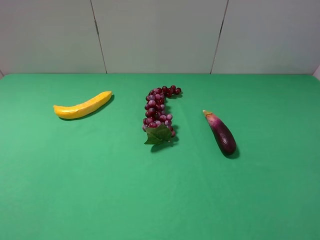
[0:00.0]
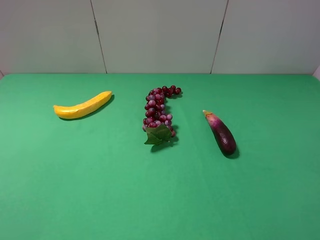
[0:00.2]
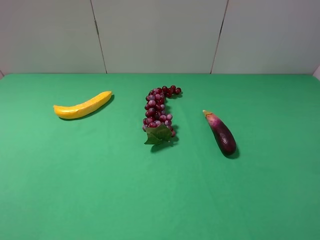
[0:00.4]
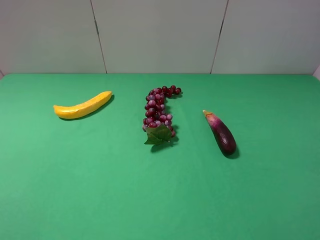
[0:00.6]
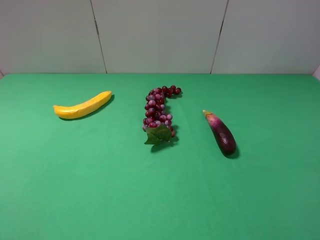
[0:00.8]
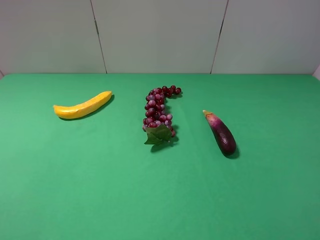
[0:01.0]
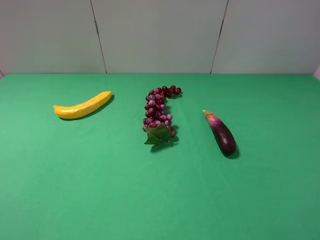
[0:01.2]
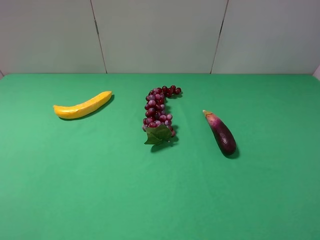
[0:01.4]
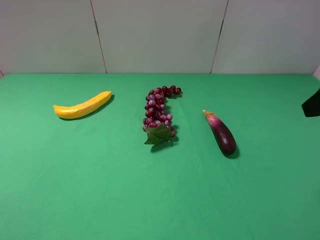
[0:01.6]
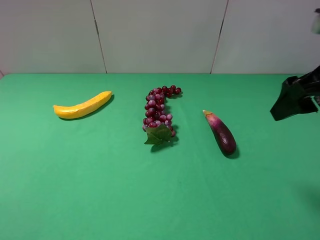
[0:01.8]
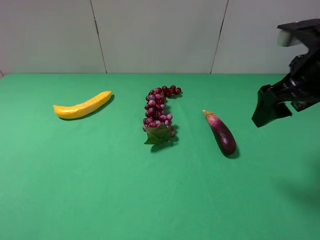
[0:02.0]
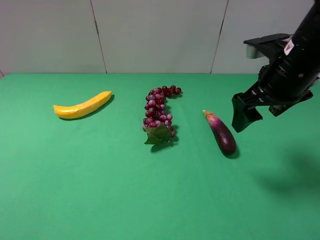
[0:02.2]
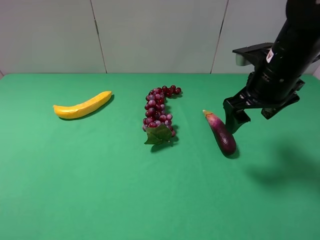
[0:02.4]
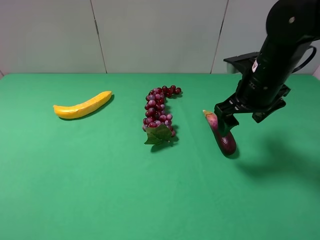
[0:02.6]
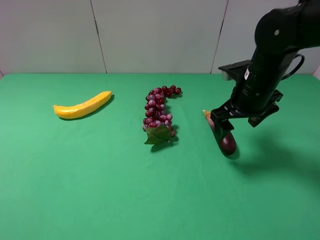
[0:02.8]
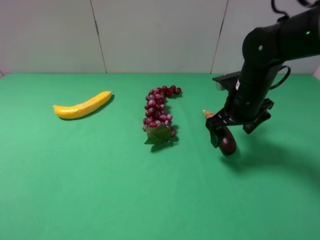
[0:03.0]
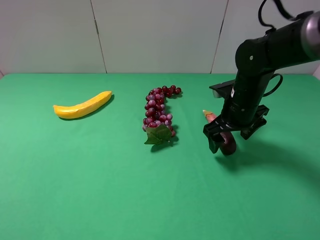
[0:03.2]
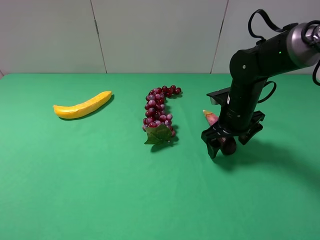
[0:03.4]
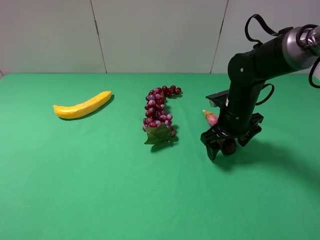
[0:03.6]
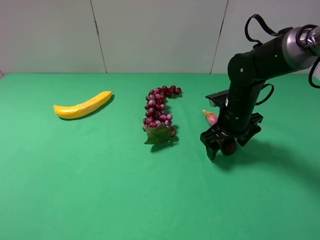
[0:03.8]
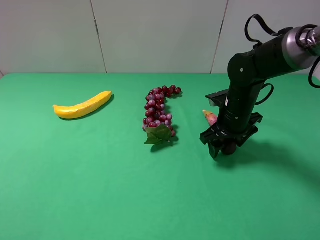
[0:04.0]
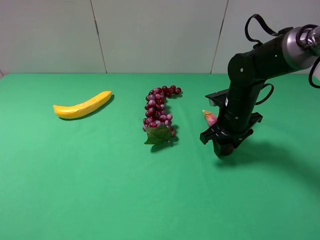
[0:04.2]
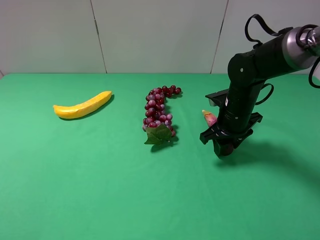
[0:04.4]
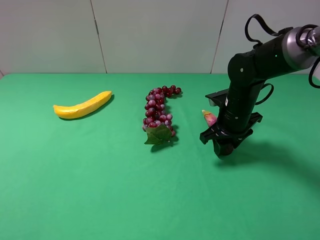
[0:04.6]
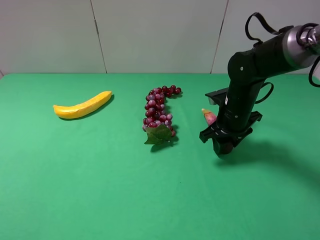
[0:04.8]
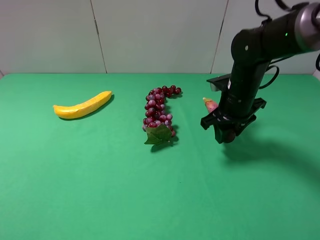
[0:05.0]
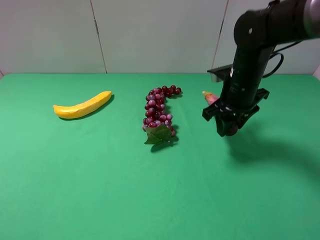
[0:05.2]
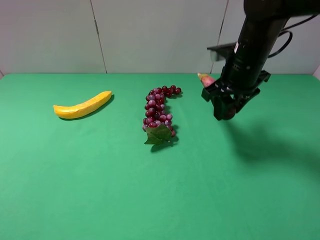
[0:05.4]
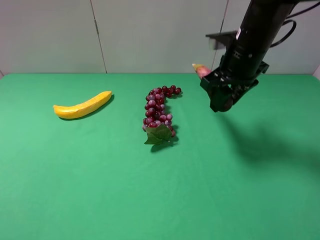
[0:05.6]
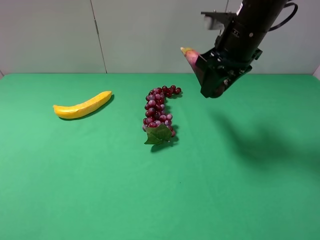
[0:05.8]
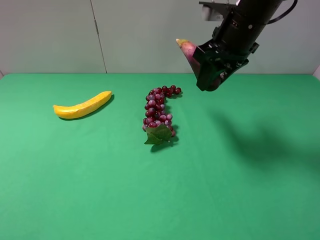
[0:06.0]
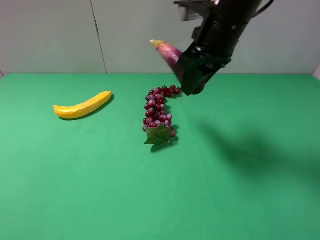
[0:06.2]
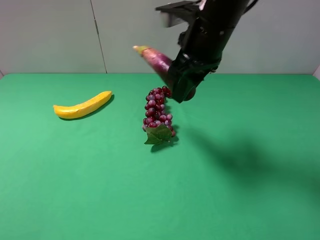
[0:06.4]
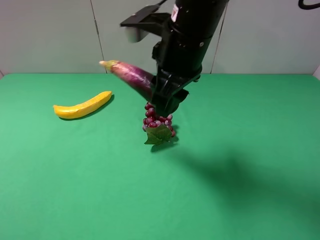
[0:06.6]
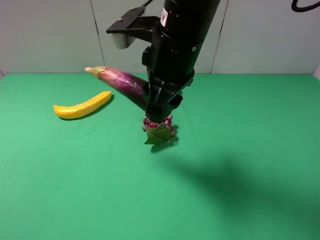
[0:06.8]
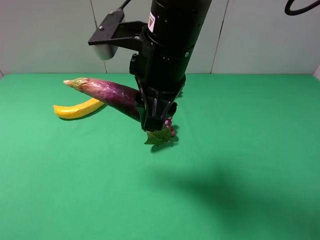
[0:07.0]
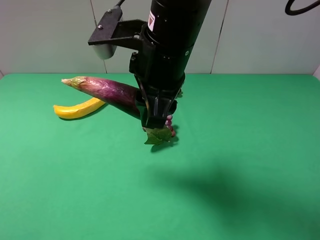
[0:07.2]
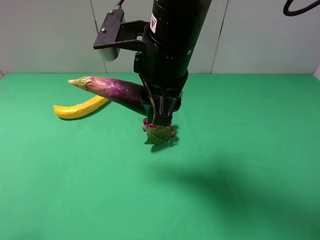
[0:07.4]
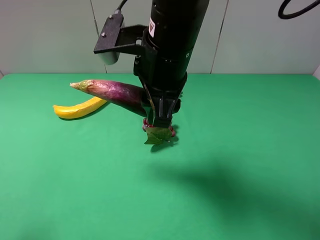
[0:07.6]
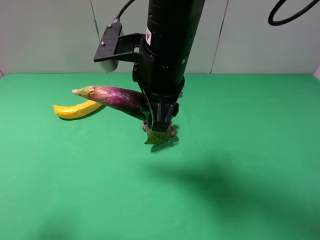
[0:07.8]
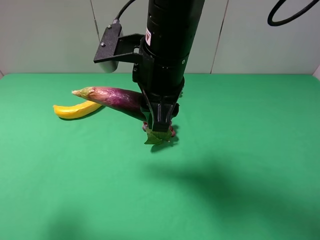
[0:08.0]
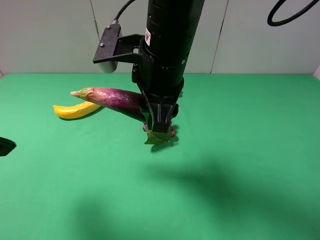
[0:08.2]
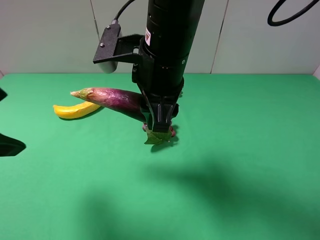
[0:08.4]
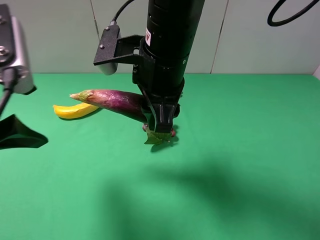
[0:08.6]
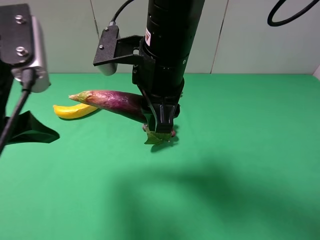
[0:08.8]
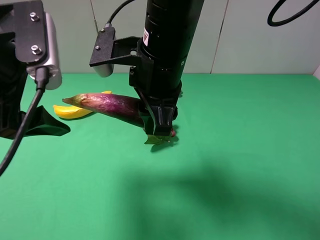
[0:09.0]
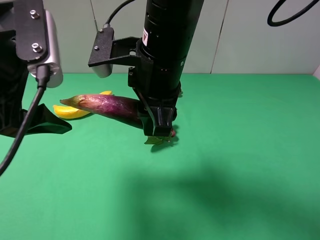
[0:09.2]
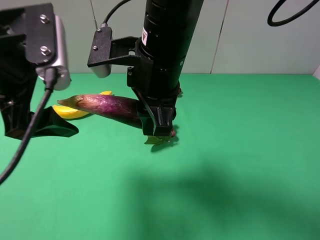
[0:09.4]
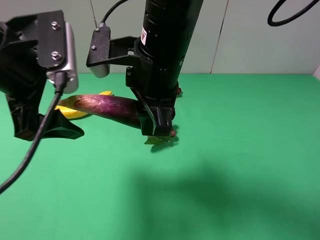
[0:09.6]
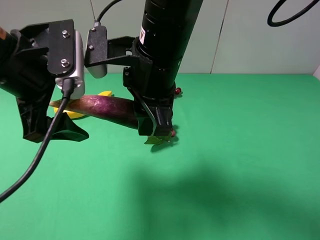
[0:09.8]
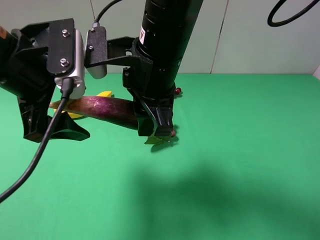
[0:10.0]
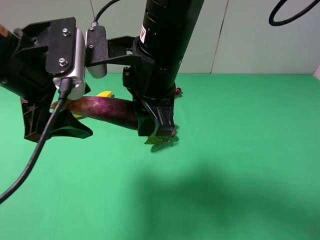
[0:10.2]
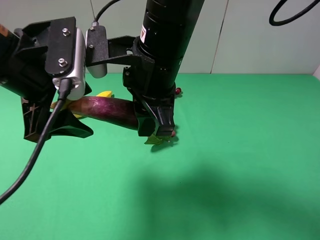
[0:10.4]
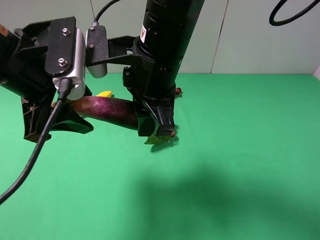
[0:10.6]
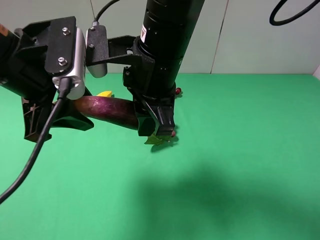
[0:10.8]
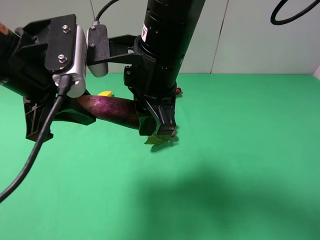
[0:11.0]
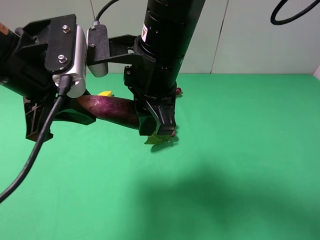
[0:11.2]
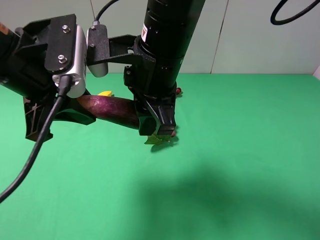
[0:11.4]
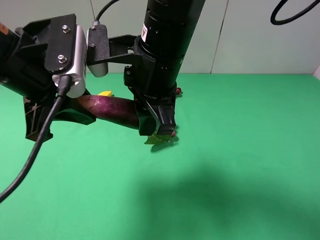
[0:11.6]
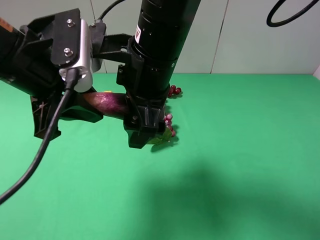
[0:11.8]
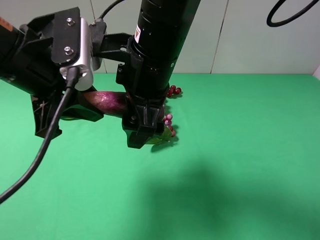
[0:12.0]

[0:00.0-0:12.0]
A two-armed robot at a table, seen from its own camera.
Task of the whole recording: use the right gripper to pick up the item and transfer it from the right gripper to the left gripper.
0:01.6 to 0:03.0: The right gripper moves downward, forward and to the left, some 25 cm.
0:03.0 to 0:04.4: The right gripper closes its fingers.
0:04.4 to 0:06.0: The right gripper is displaced upward by some 20 cm.
0:06.0 to 0:07.6: The right gripper goes approximately 15 cm to the left and backward. Meanwhile the left gripper goes approximately 5 cm forward.
0:07.6 to 0:09.0: The left gripper travels forward and to the right by some 15 cm.
0:10.4 to 0:12.0: The left gripper closes, while the right gripper opens up.

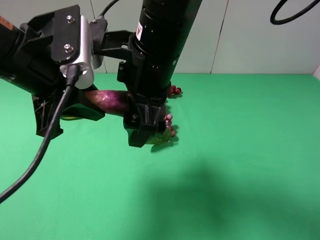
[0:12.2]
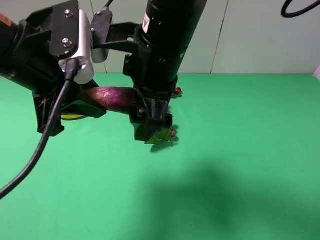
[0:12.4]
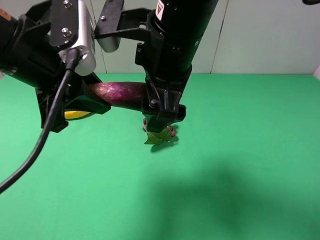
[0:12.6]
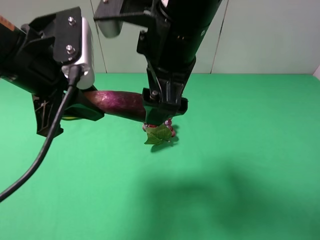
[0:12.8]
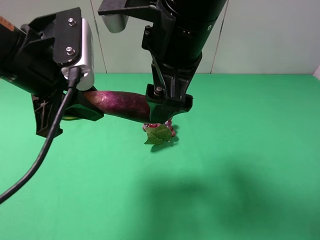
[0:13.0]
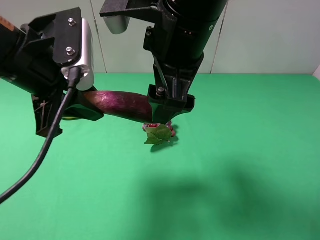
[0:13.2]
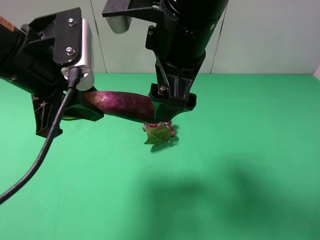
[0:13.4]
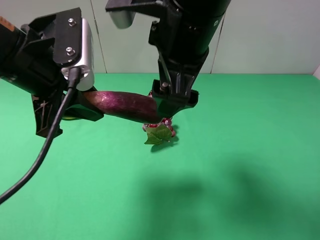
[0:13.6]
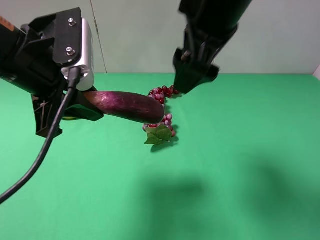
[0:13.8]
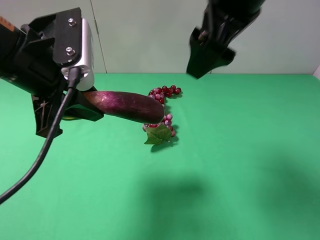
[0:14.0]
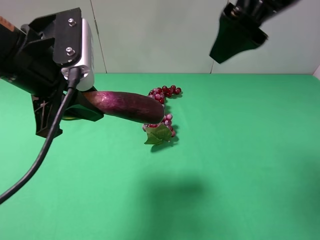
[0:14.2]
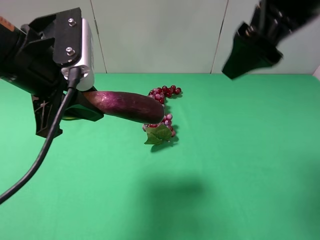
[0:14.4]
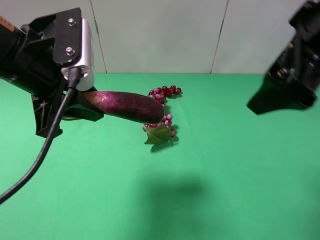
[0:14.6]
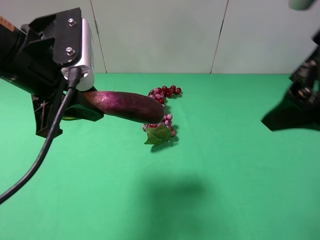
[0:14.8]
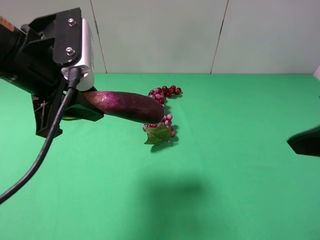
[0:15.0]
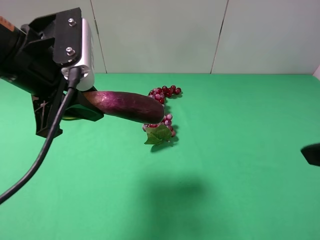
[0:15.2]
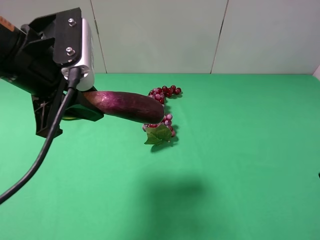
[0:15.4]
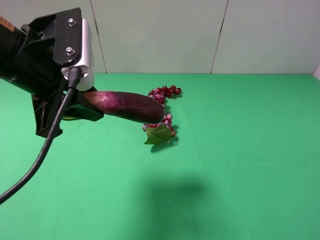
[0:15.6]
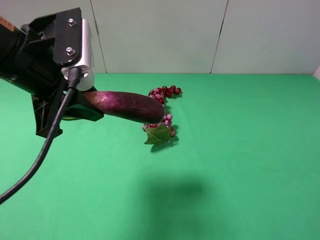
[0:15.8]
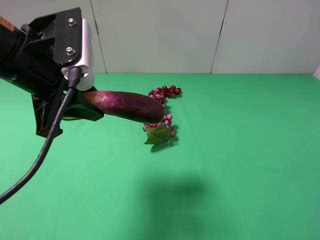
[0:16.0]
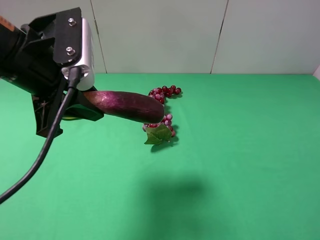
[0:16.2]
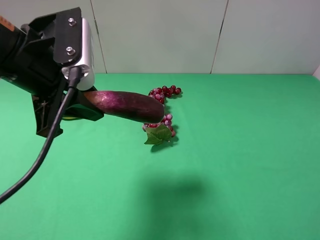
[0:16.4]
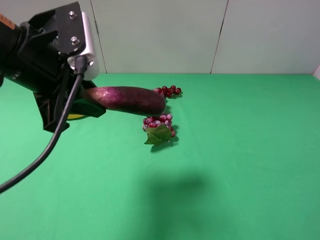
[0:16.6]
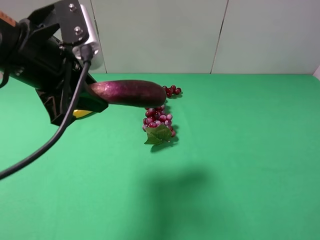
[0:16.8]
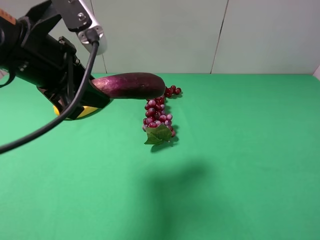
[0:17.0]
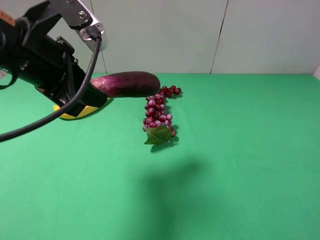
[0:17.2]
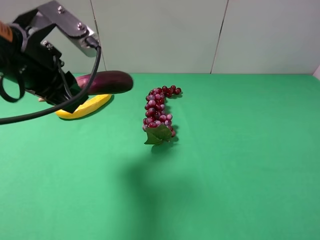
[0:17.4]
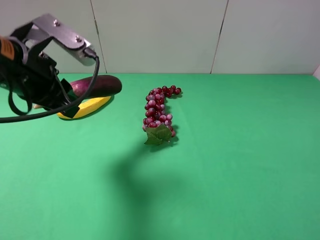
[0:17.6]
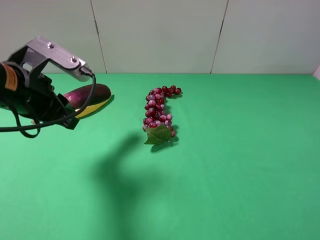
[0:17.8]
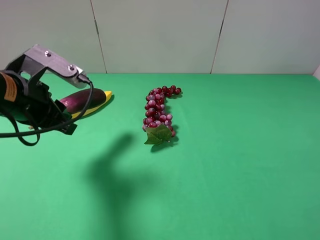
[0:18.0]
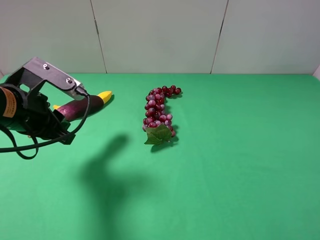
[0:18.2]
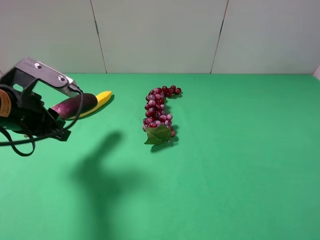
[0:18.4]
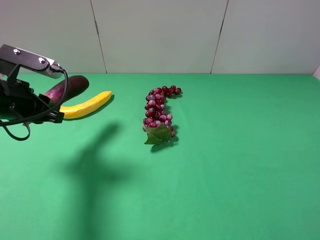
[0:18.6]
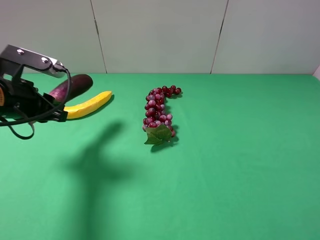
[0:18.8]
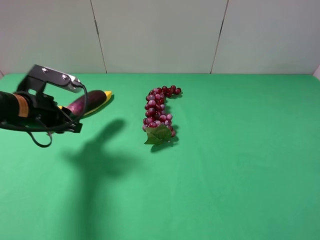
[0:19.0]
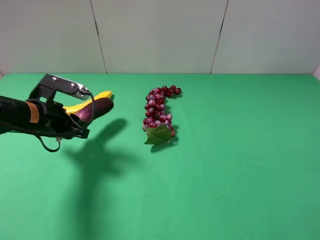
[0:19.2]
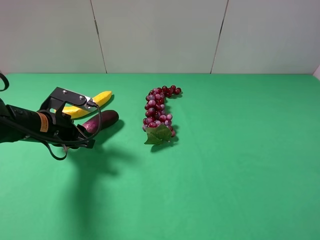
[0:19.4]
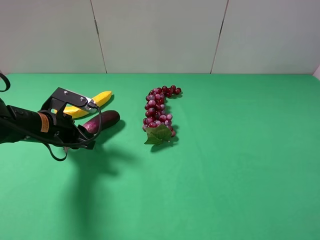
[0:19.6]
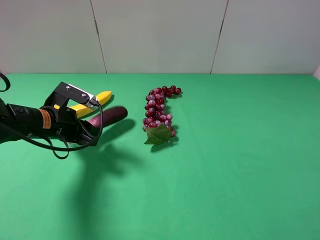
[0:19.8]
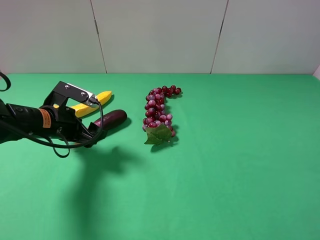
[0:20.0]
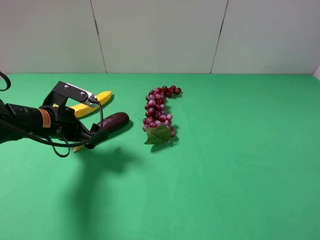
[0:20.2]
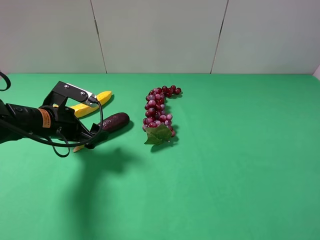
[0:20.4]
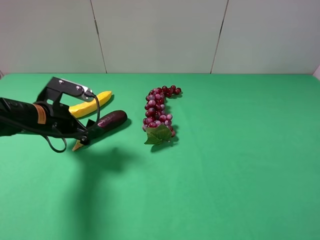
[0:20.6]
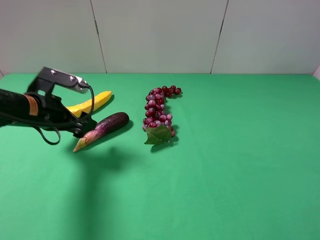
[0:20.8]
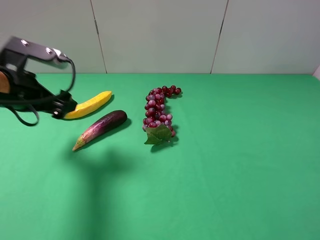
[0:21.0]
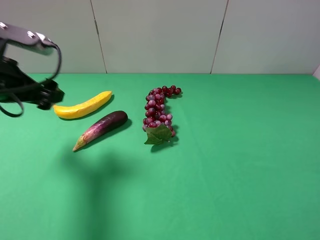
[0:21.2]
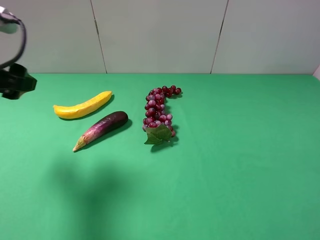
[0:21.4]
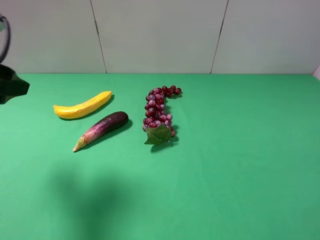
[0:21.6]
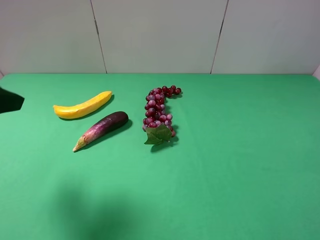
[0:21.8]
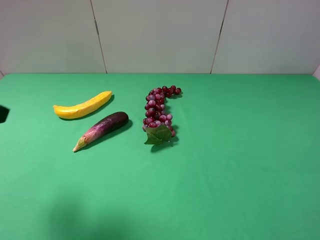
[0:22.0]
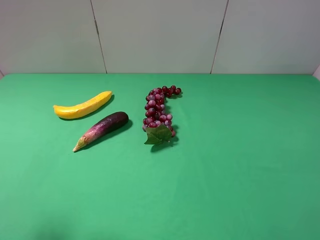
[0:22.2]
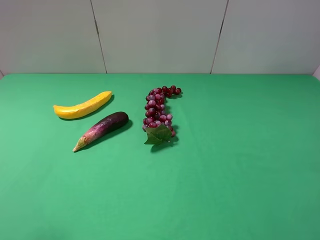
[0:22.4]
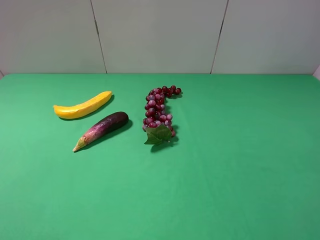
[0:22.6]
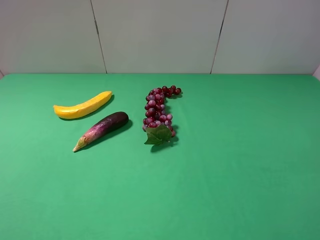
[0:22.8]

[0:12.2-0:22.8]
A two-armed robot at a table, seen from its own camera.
Task of the whole recording: use the right gripper to pick up the item and transfer it from the right gripper to the left gripper.
Step, 0:12.8 to 0:20.6: The left gripper places eggplant on the left side of the table.
0:12.2 to 0:13.8: The right gripper travels to the right and upward by some 10 cm.
0:13.8 to 0:15.2: The right gripper shifts approximately 25 cm to the right and backward.
0:15.2 to 0:16.8: The right gripper shifts roughly 10 cm backward, to the right and downward.
0:16.8 to 0:18.2: The left gripper is displaced downward by about 10 cm.
0:18.2 to 0:19.8: The left gripper goes about 10 cm downward.
0:19.8 to 0:21.2: The left gripper goes roughly 15 cm upward, and opens.
0:21.2 to 0:22.8: The left gripper heads backward, covering some 20 cm.
